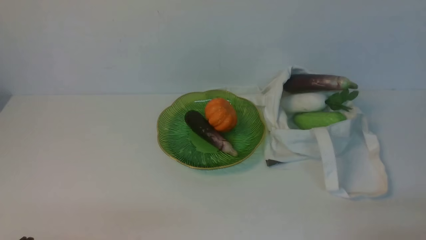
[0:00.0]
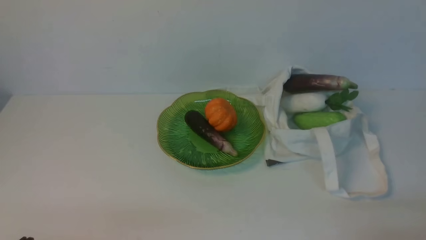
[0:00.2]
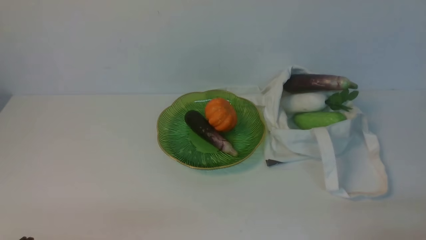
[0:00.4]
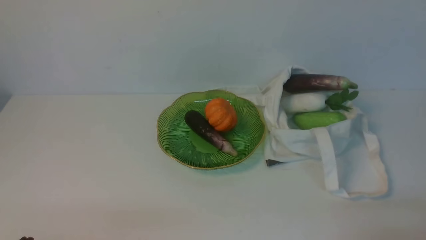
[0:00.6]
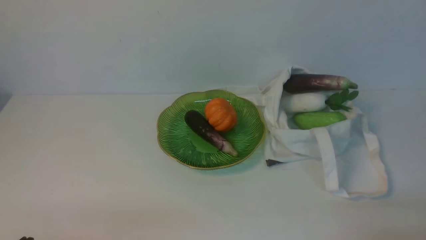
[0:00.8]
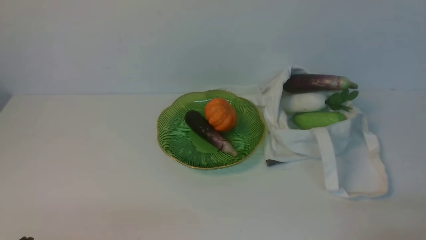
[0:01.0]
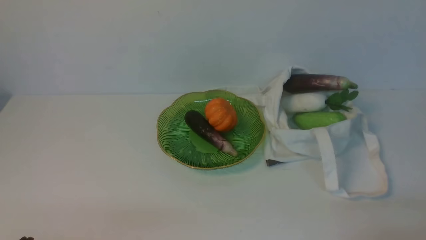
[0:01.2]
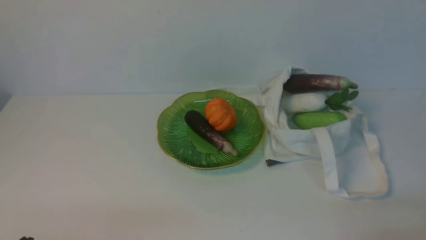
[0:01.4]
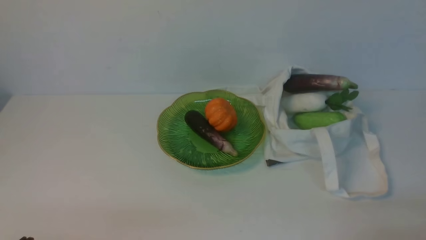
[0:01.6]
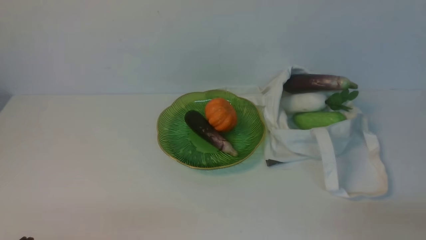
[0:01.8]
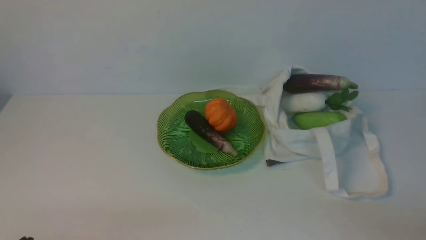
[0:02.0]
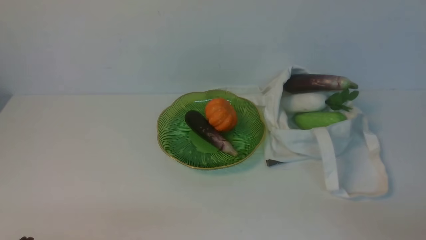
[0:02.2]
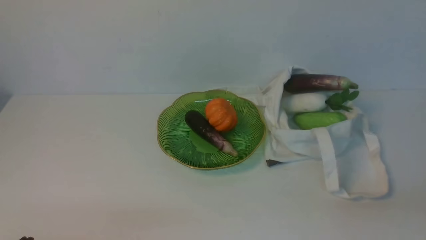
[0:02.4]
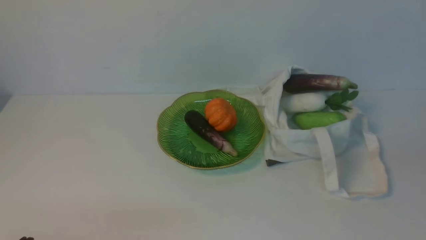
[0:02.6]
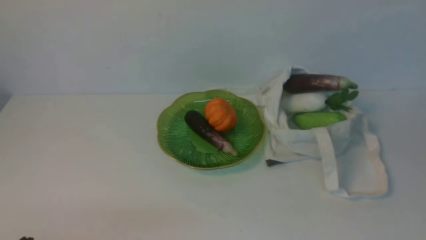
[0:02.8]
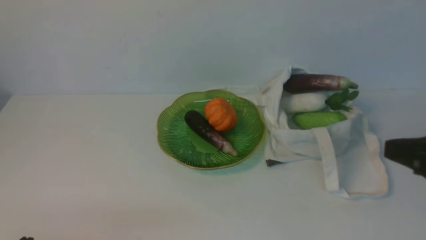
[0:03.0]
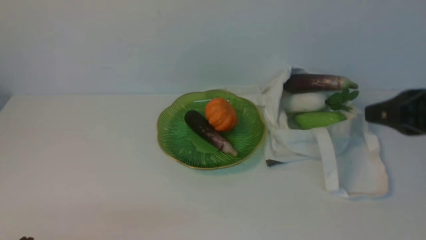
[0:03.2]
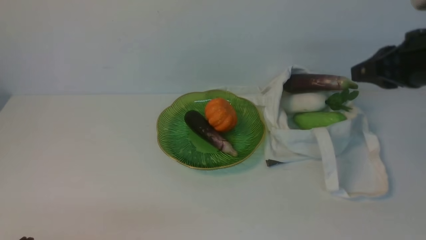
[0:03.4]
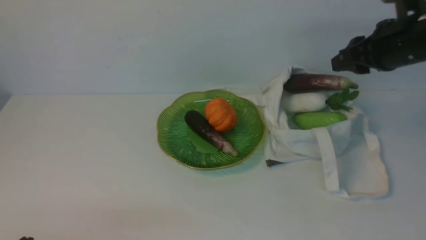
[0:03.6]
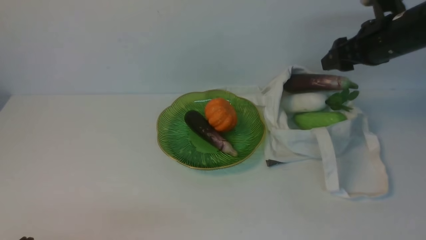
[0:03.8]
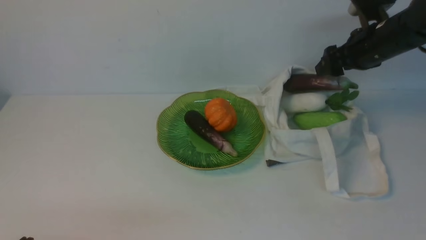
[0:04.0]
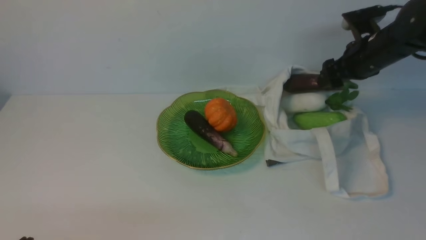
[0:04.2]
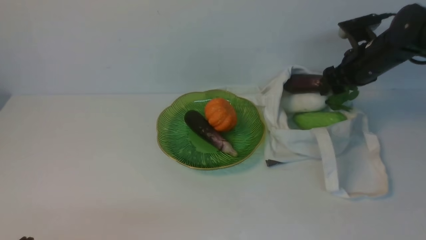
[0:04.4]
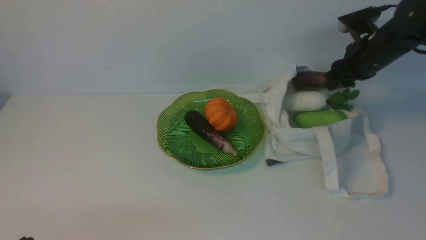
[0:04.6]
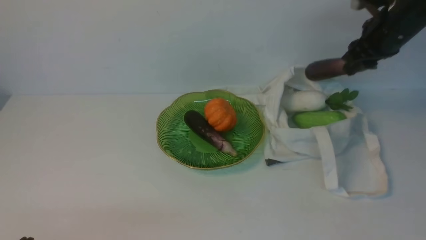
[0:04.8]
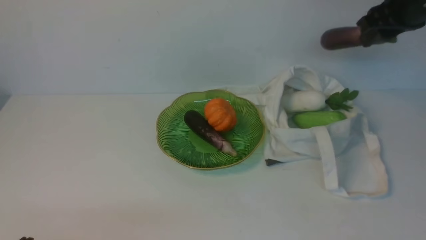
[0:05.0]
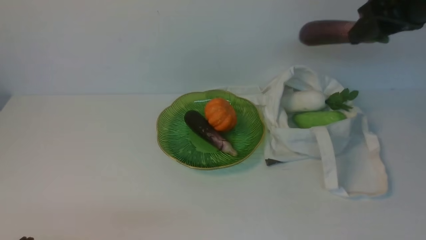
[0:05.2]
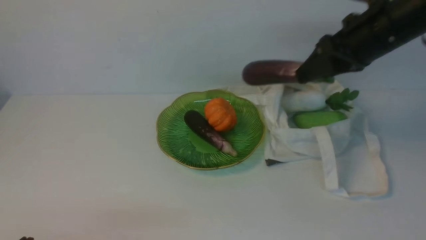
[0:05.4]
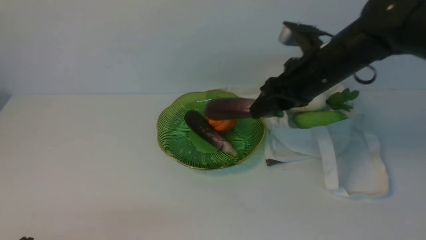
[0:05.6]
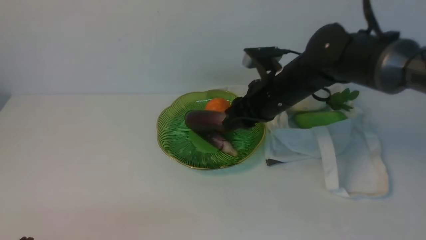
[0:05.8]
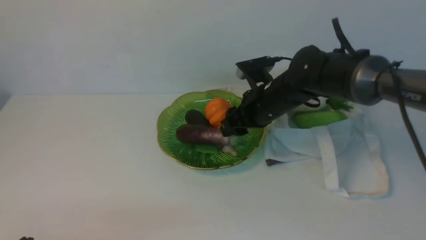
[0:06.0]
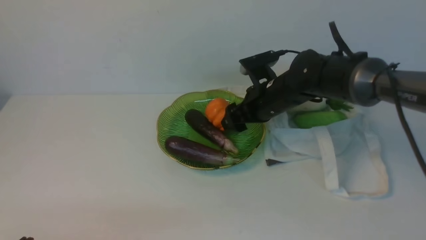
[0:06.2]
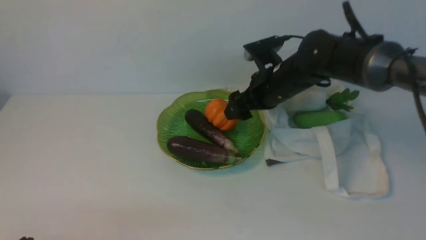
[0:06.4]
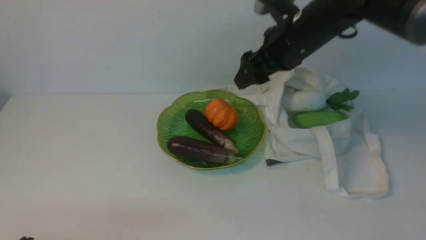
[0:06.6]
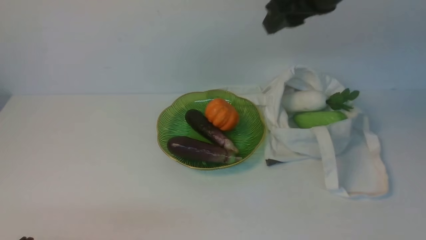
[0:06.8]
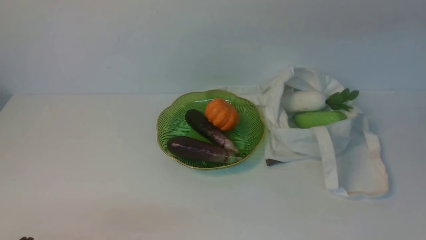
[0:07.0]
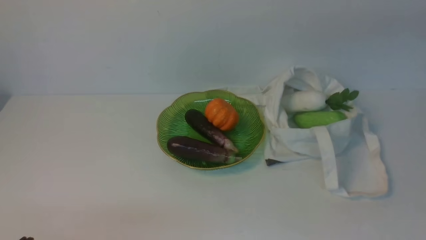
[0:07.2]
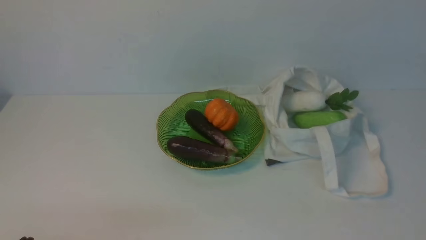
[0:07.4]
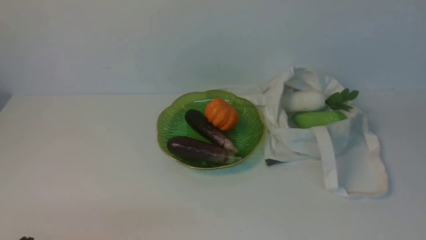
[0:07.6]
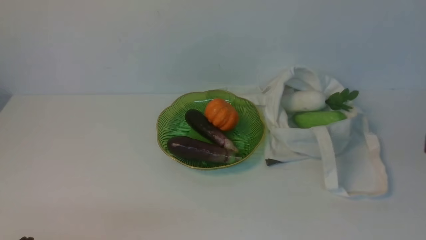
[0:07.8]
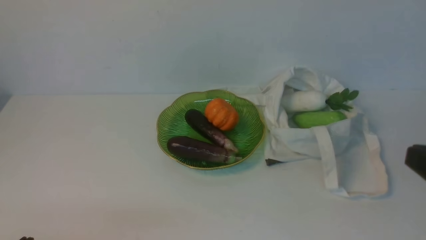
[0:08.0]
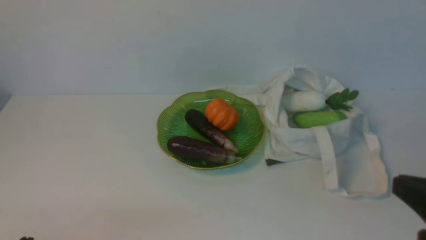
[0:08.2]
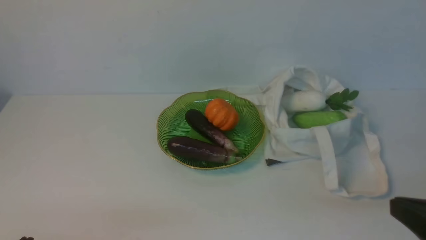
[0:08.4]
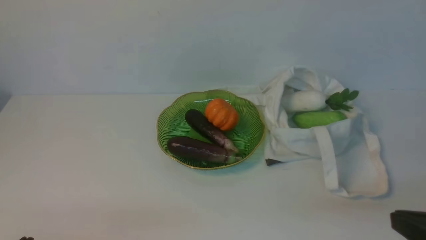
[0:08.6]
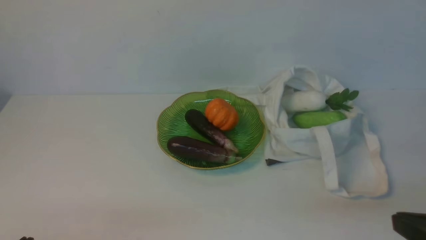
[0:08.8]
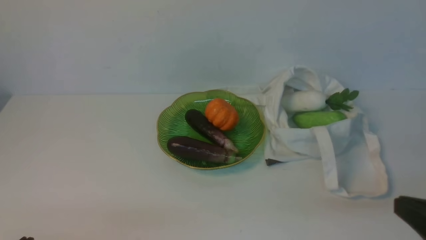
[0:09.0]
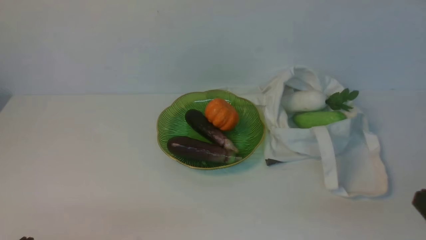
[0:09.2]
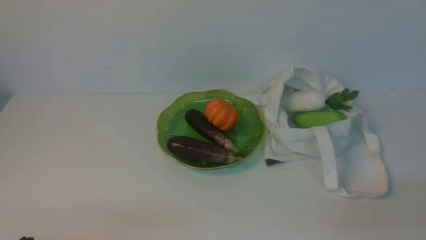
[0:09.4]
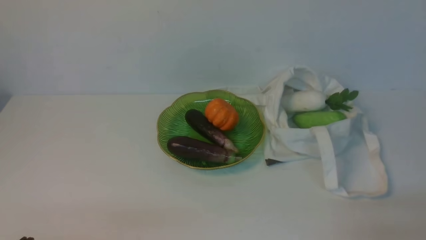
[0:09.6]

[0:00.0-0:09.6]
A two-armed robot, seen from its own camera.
Task of the whole recording: take vegetables from cloth bag on white table place on plate.
Step, 0:00.0 to 0:04.4: Grasp the eggplant with right gripper.
Step, 0:04.6 to 0:06.2: Place the eggplant on the plate with right gripper.
0:01.6 to 0:03.2: The right gripper travels upward and forward by roughly 20 cm.
0:03.2 to 0:04.8: The right gripper goes some 25 cm forward, and opens up.
0:04.8 to 0:06.4: The right gripper goes about 15 cm to the left, and opens up.
0:06.4 to 0:08.0: The right gripper travels backward and to the right by some 35 cm, and closes up.

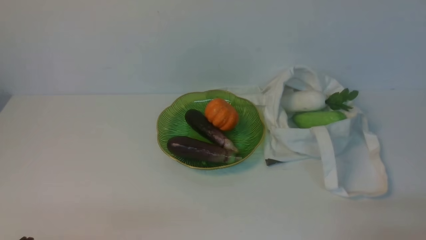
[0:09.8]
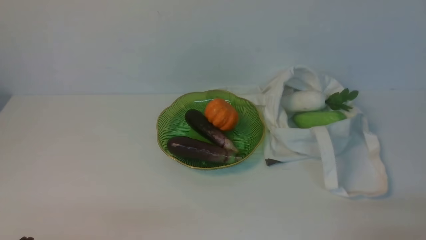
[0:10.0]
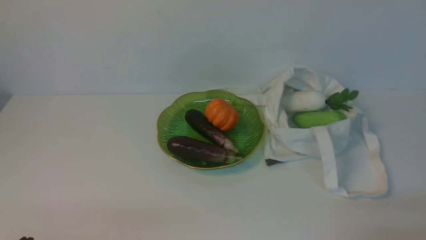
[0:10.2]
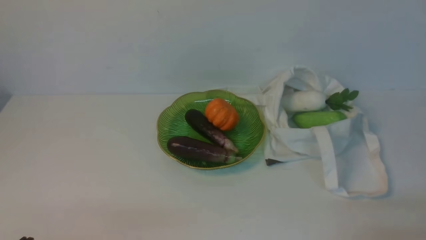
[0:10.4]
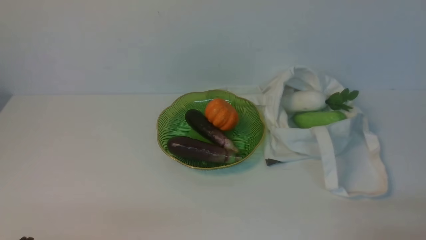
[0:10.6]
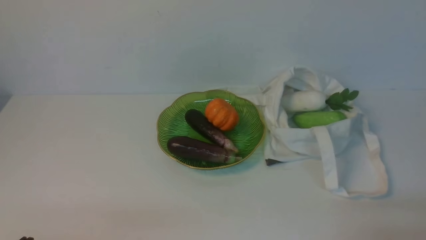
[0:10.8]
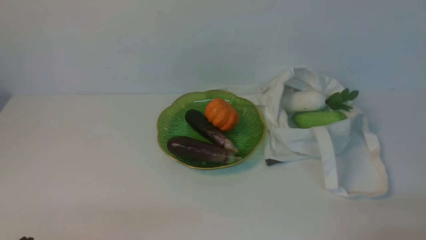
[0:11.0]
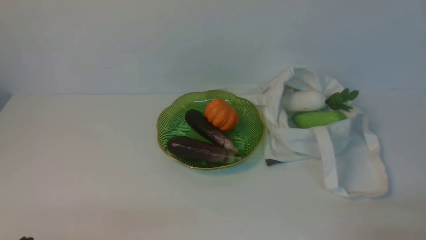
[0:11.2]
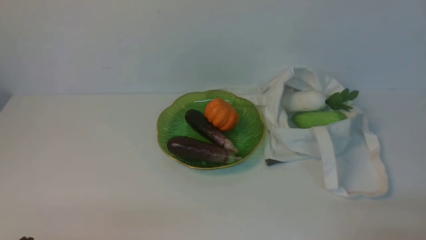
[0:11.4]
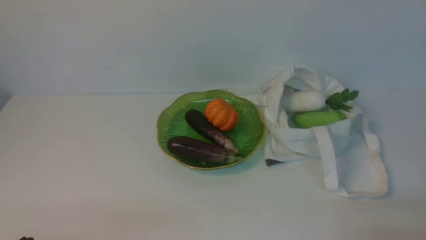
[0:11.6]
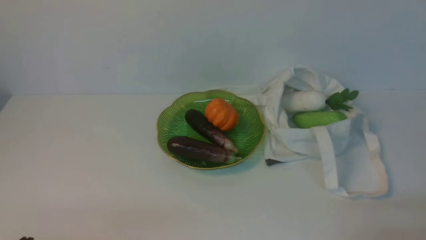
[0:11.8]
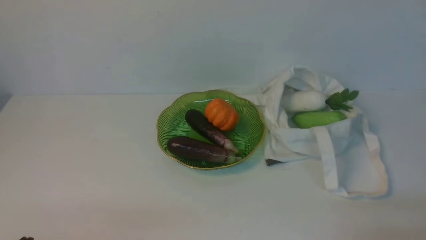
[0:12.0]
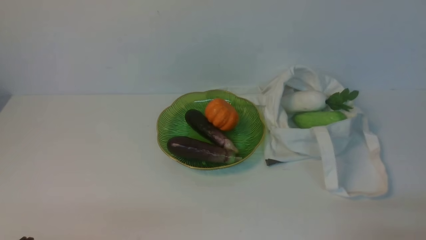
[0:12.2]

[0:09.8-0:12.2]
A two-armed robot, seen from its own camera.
Task of the whole recording: take vegetables from cloth bag on white table place on plate.
0:09.8 to 0:12.2: Both grippers stay put.

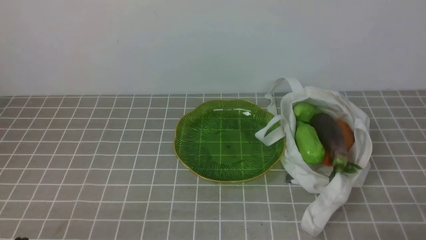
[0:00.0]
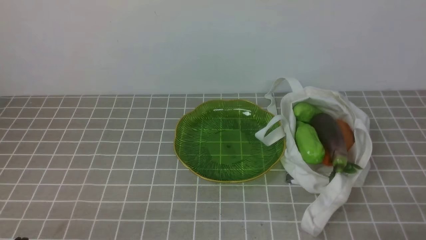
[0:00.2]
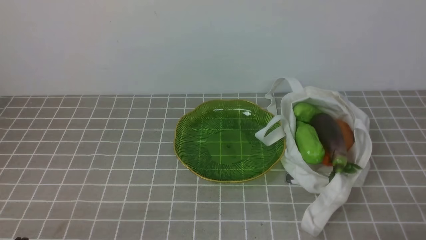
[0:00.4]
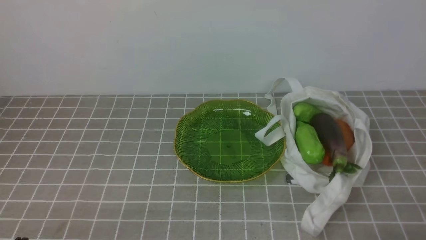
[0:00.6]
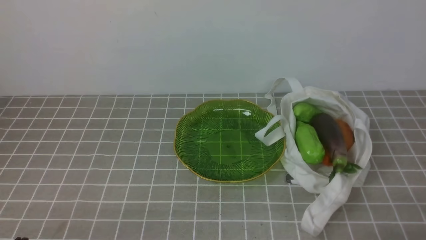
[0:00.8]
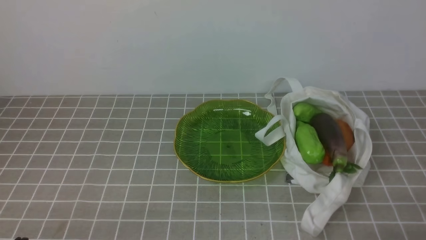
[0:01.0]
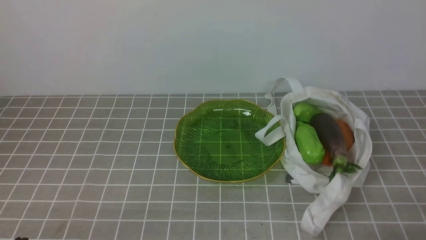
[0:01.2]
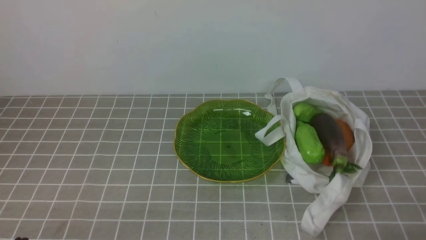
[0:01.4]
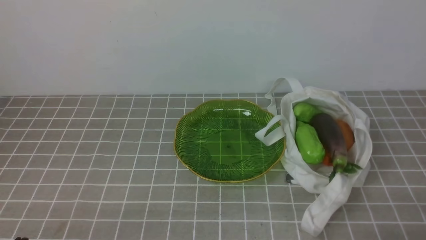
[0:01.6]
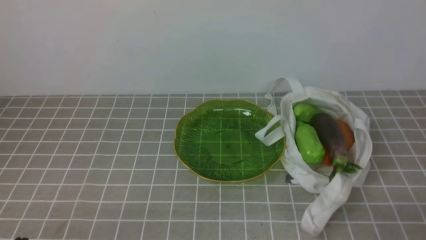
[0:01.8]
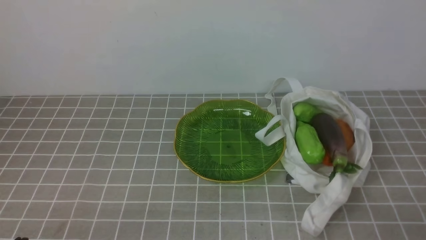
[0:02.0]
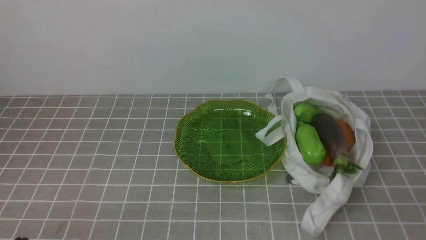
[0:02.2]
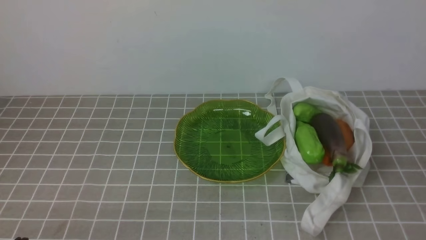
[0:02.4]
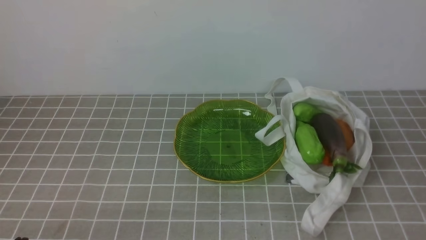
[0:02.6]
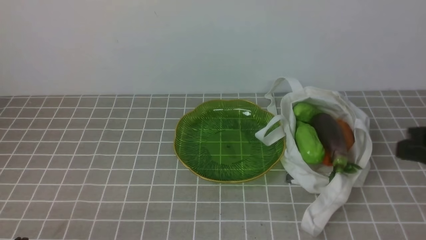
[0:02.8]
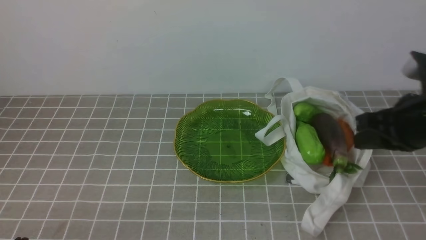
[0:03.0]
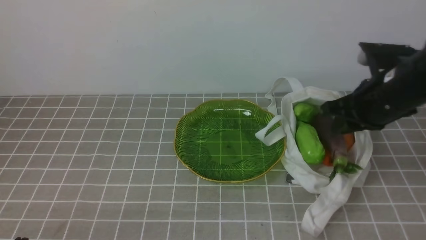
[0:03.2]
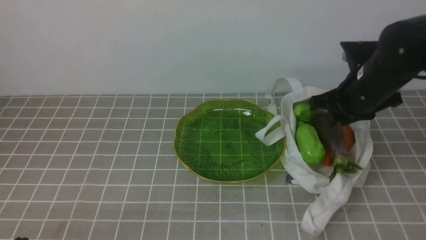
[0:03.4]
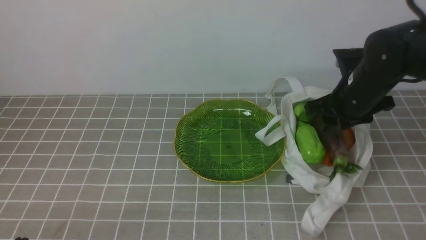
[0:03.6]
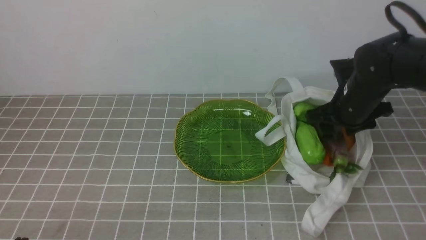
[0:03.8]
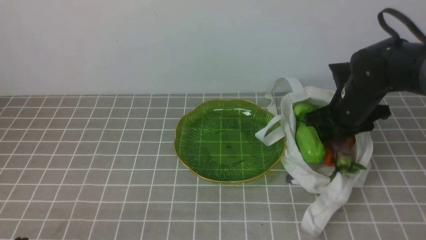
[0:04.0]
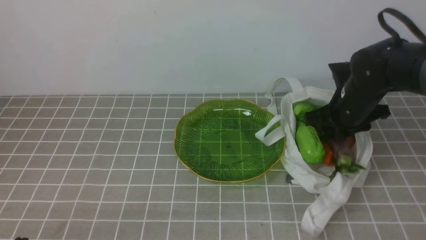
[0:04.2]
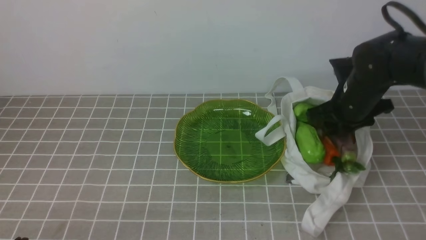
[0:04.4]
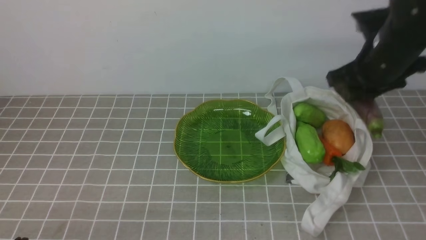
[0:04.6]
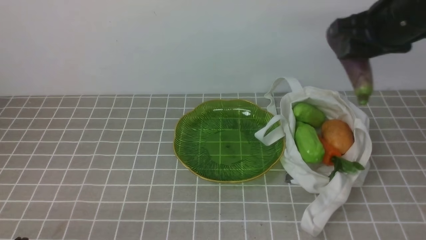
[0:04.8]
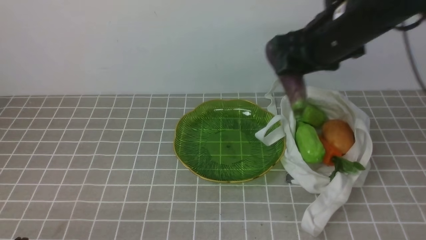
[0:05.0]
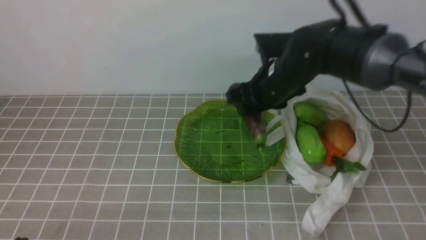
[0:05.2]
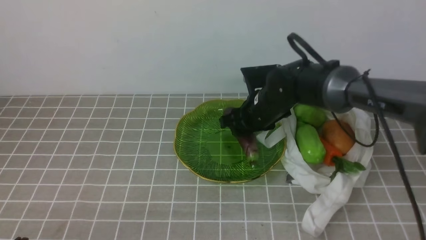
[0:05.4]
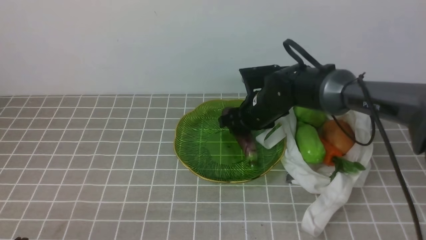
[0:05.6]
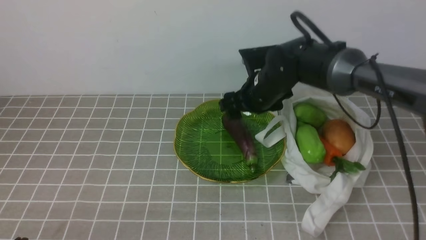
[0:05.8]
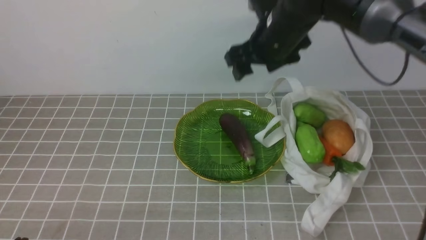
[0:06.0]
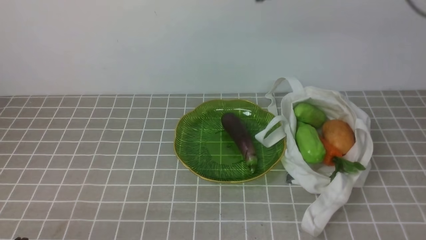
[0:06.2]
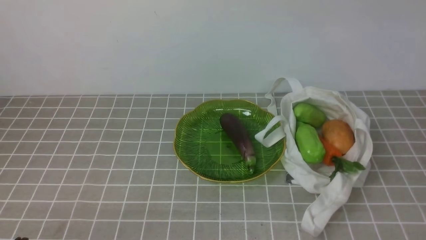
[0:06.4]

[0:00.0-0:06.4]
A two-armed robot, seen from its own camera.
Task of the whole recording: take vegetables from bag on grey coffee tablecloth place on plate.
Step, 0:00.0 to 0:04.0: Grasp the eggplant with right gripper.
Step, 0:04.2 to 0:05.8: Place the eggplant on the plate with right gripper.
0:01.6 to 0:03.2: The right gripper moves forward, about 25 cm.
0:03.2 to 0:04.8: The right gripper shifts about 5 cm upward, and opens up.
0:04.8 to 0:06.4: The right gripper goes some 20 cm upward and backward.
